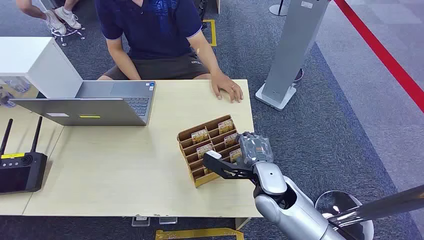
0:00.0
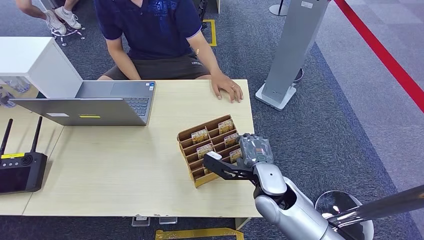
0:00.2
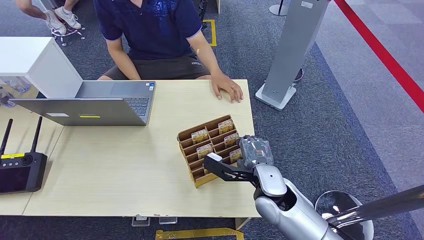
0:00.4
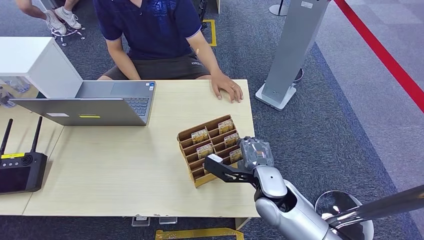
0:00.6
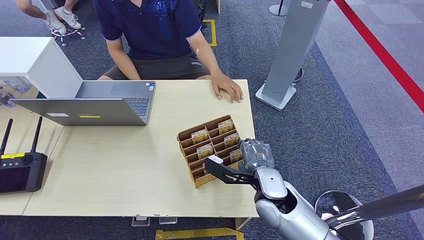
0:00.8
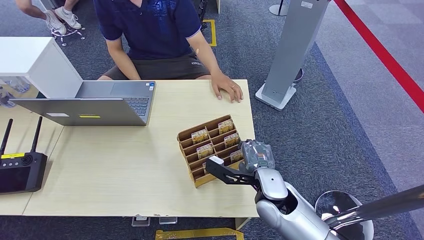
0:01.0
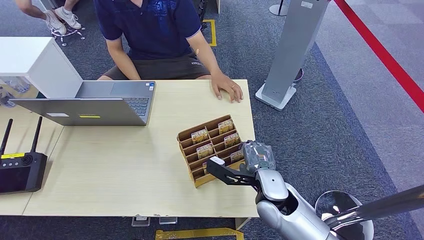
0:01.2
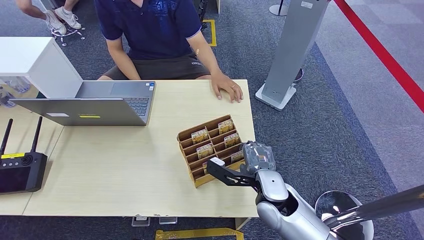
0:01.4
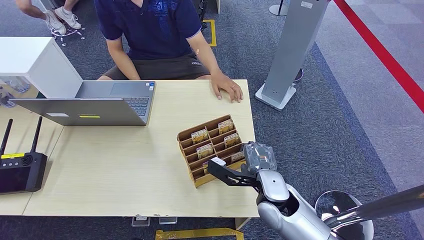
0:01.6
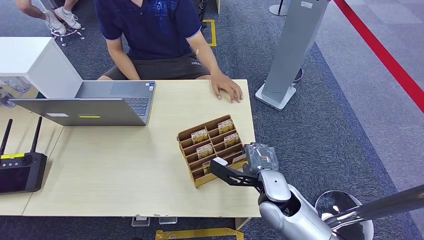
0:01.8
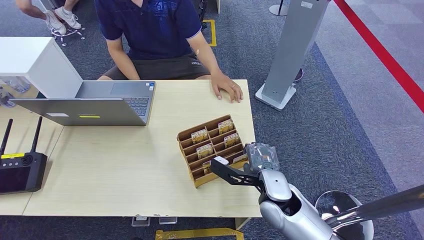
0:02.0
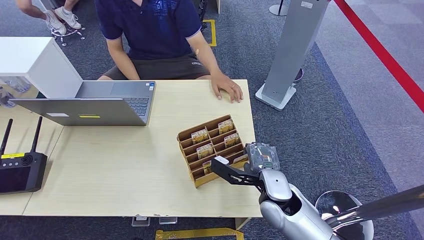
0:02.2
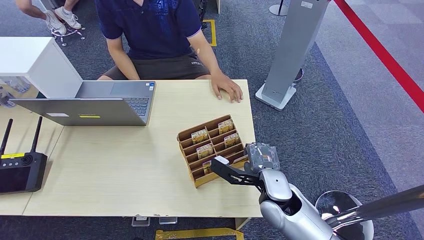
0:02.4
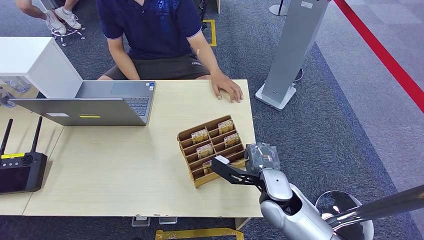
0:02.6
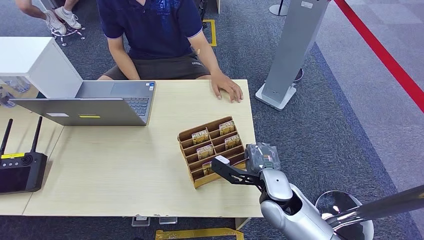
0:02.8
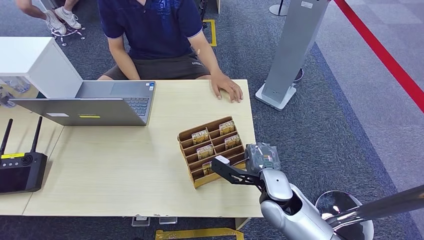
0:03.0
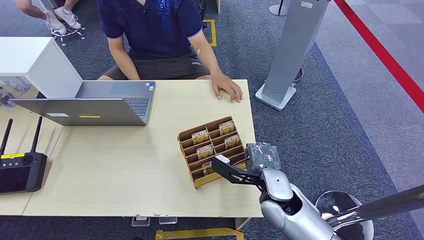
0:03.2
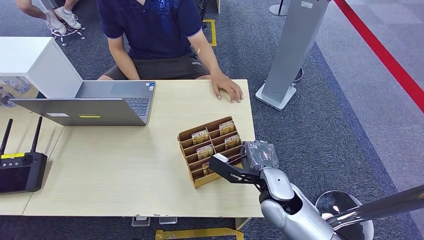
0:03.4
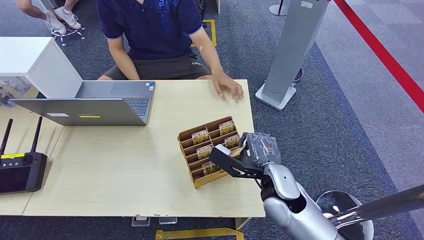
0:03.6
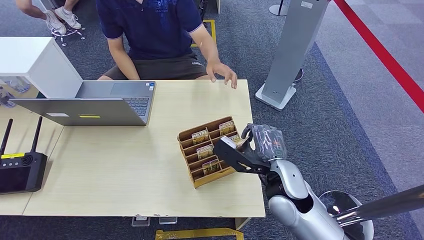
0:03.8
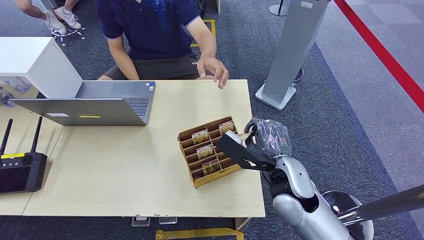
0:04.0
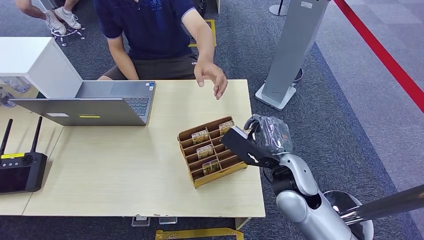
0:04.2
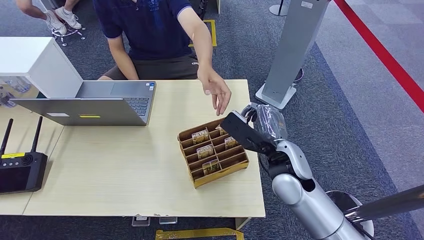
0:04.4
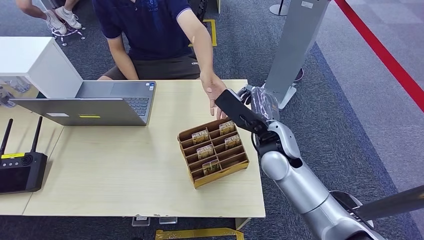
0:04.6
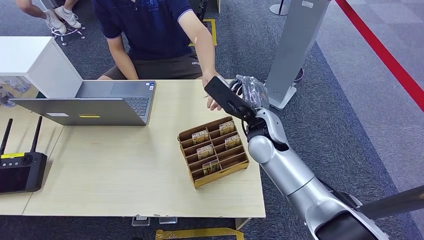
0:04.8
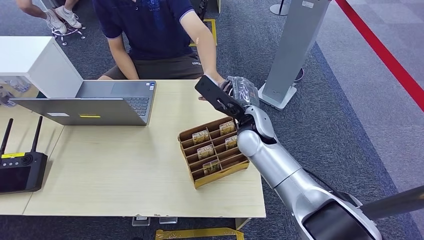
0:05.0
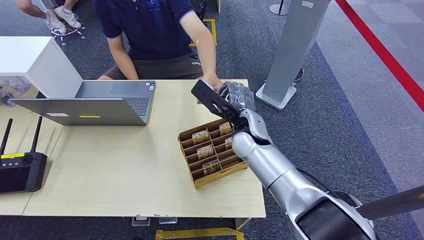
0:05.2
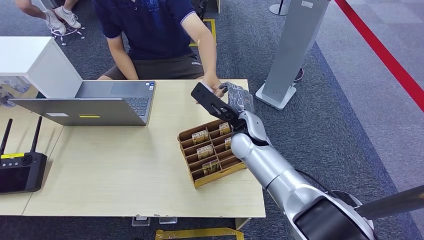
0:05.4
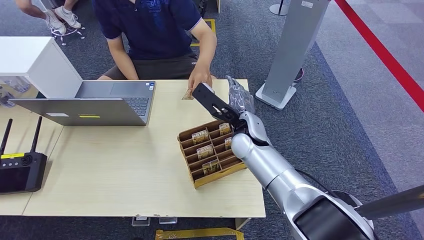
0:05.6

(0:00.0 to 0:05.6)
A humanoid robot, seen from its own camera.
Step, 0:00.0 - 0:03.0: Pick up the key card from the card box.
Step, 0:04.4 - 0:05.6: Hand the key card to the target.
0:01.4 - 0:02.8: The two hands keep their place.
0:02.8 - 0:04.2: The right hand is displaced upward by some 5 cm.
0:04.2 - 0:05.6: The right hand heads forward and to the left, covering some 15 cm.

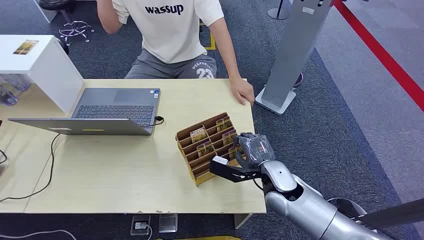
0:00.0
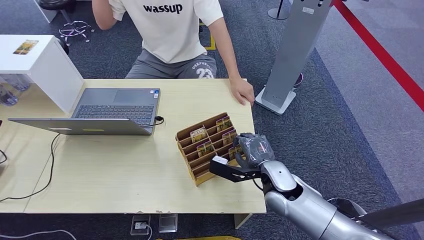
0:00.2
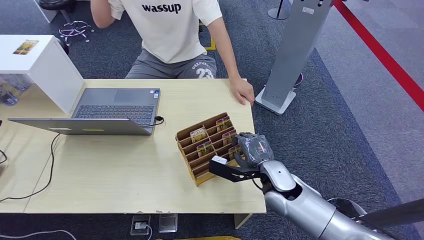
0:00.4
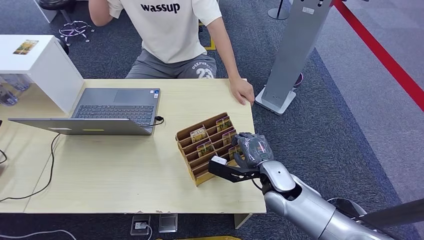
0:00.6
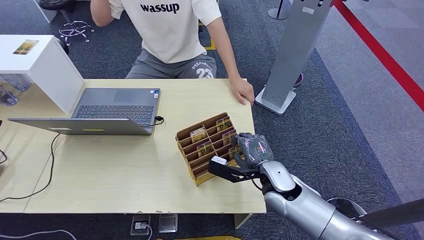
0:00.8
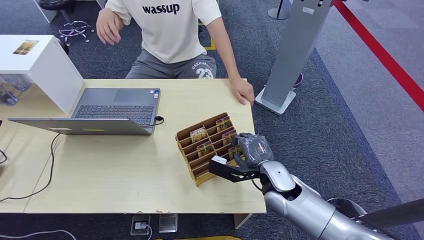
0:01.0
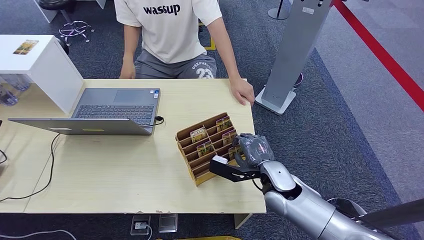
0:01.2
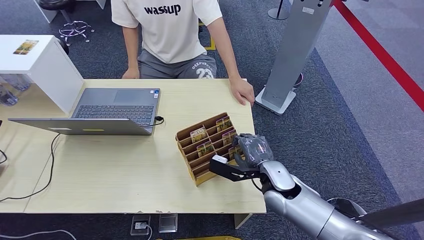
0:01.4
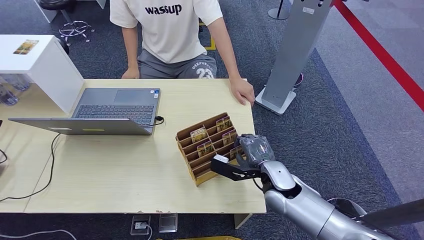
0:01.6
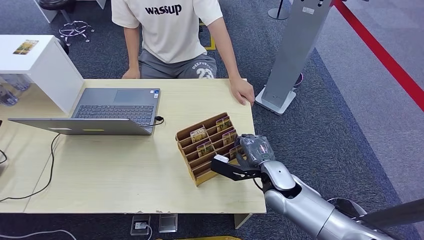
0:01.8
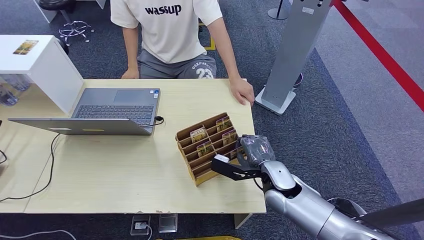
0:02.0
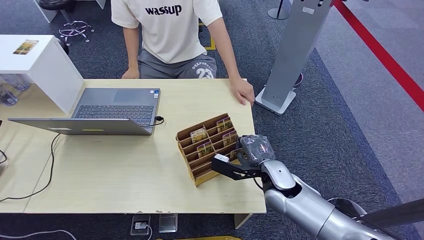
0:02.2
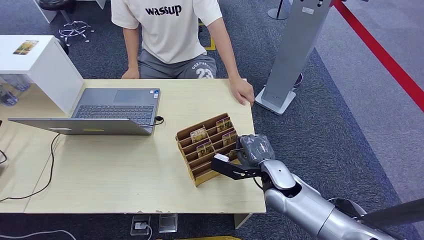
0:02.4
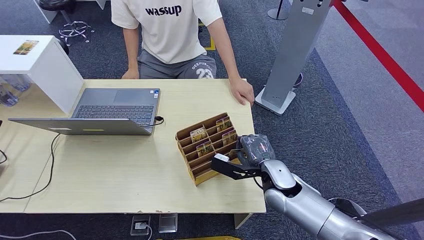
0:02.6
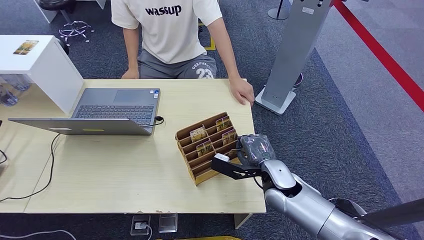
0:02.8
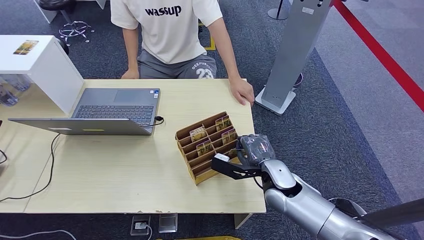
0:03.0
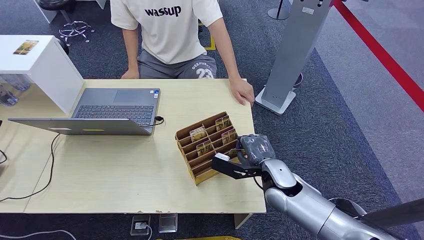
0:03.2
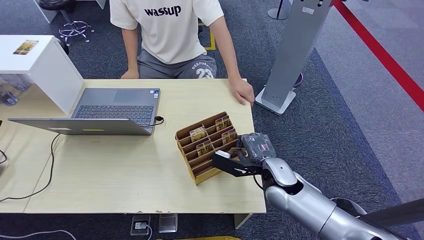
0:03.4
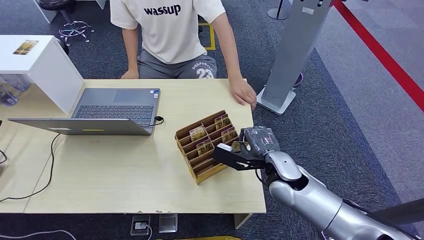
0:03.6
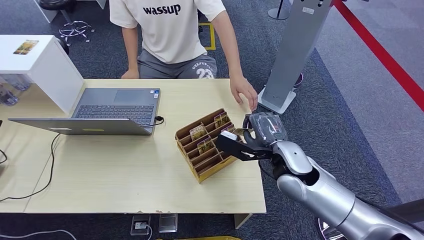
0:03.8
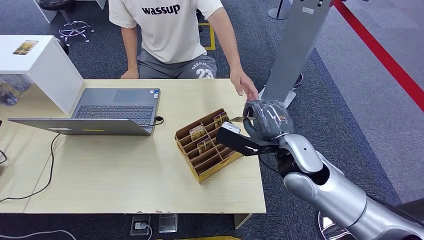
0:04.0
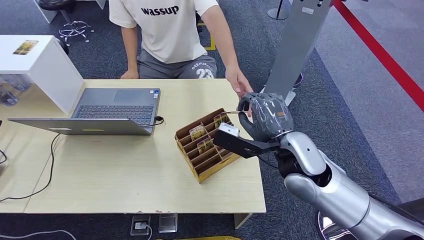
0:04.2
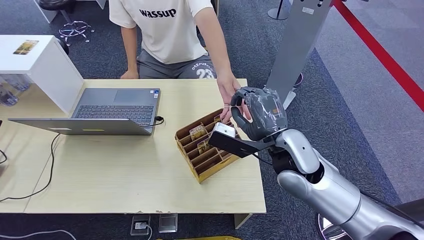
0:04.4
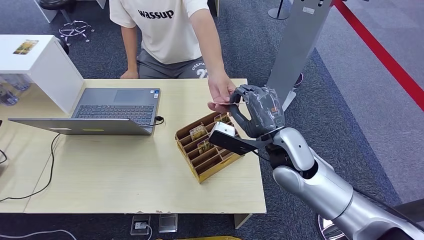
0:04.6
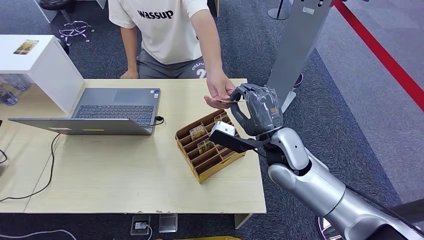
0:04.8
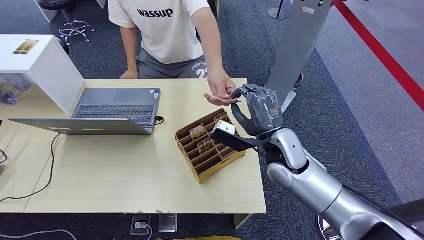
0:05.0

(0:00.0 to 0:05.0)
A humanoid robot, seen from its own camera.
Step, 0:00.0 - 0:03.8: Pick up the key card from the card box.
Step, 0:04.0 - 0:05.0: Hand the key card to the target.
0:01.6 - 0:03.4: Both hands stay about where they are.
0:03.4 - 0:05.0: The right hand moves upward, approximately 10 cm.

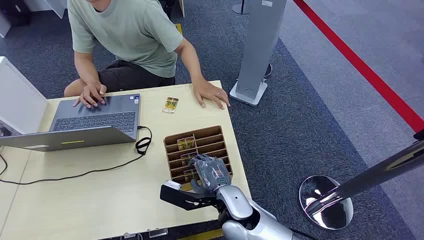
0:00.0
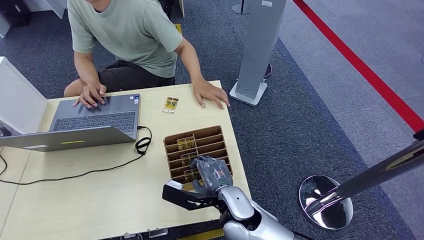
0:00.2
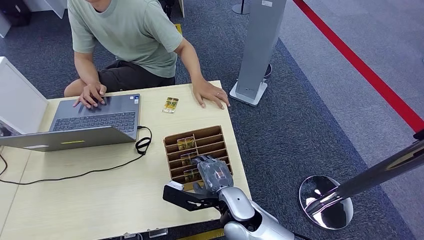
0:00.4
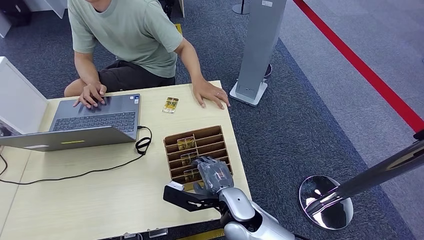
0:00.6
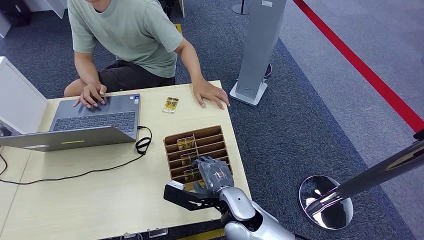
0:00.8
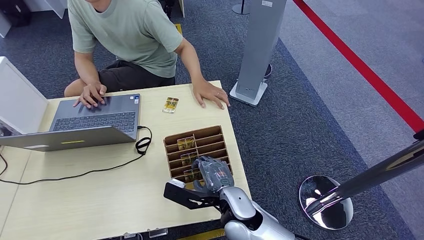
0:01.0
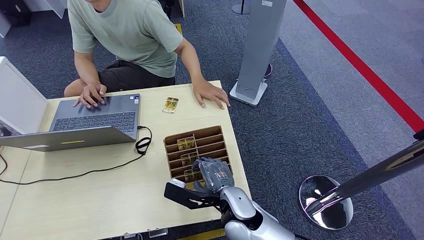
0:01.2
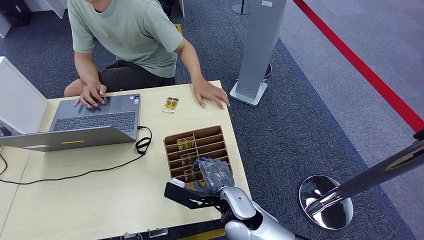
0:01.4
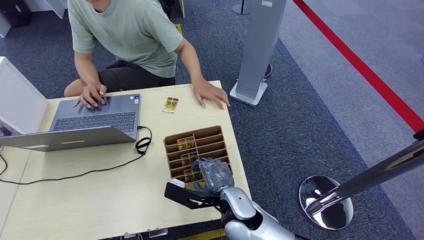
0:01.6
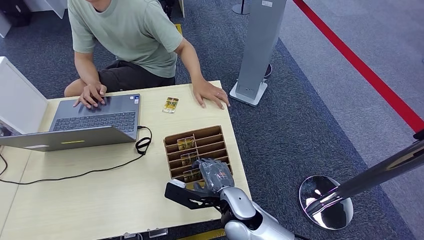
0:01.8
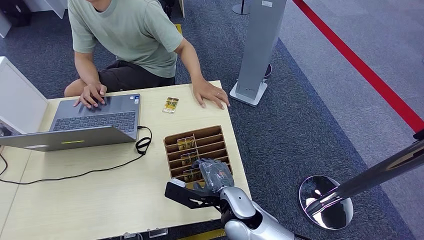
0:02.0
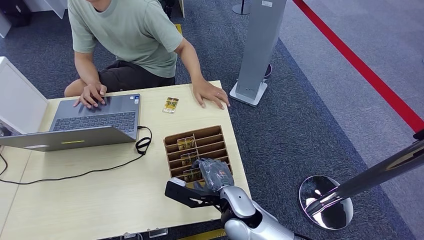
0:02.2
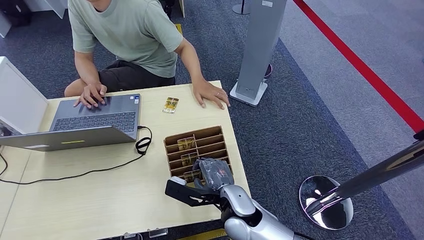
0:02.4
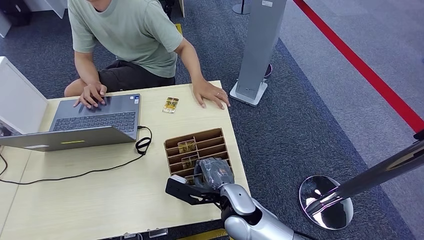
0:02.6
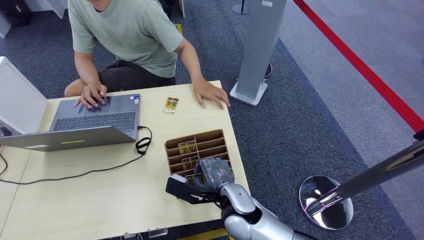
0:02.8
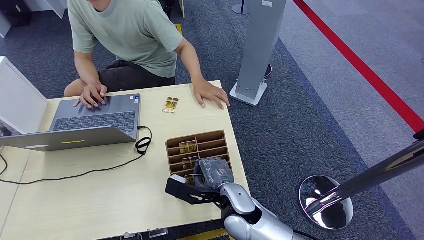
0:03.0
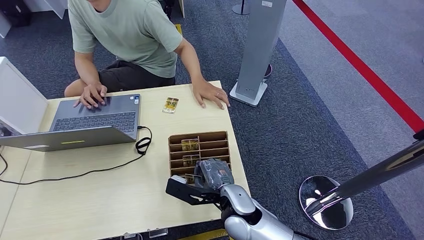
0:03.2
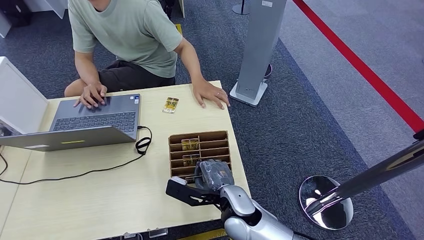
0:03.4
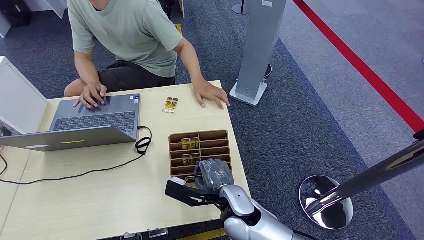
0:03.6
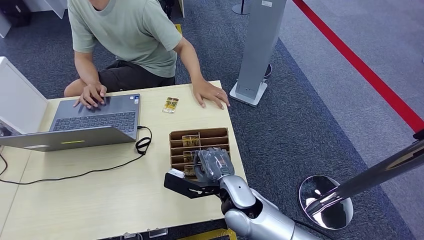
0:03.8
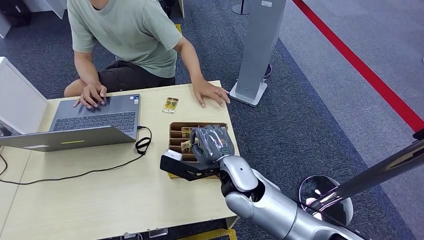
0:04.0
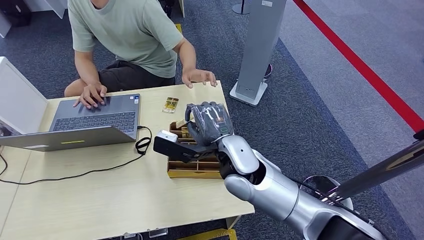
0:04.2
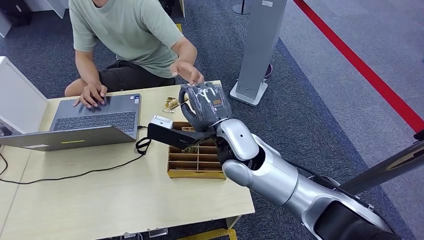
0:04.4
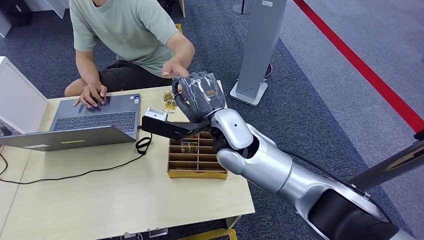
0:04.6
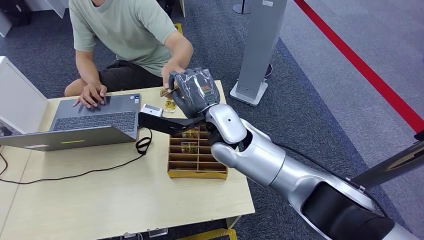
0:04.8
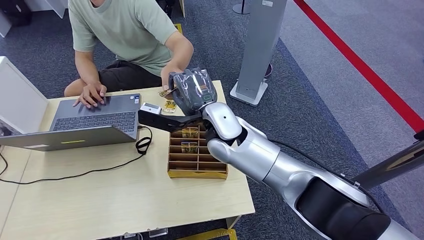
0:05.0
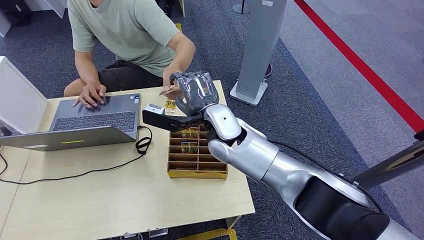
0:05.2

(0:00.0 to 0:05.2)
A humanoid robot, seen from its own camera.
Step, 0:00.0 - 0:04.2: Pick up the key card from the card box.
Step, 0:04.4 - 0:05.2: Hand the key card to the target.
0:01.8 - 0:03.4: The two hands keep their place.
0:03.4 - 0:05.2: The right hand moves upward and forward, about 20 cm.
